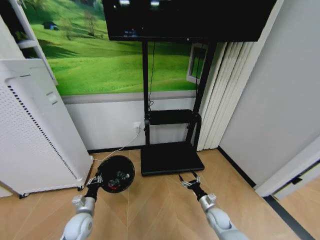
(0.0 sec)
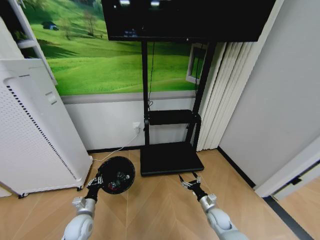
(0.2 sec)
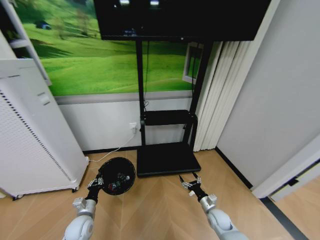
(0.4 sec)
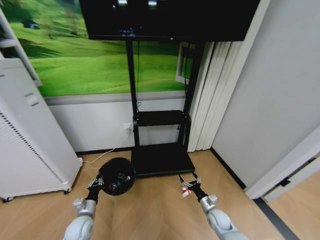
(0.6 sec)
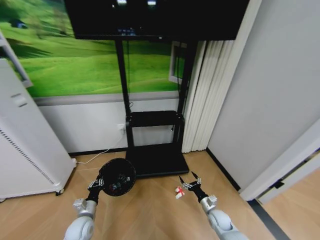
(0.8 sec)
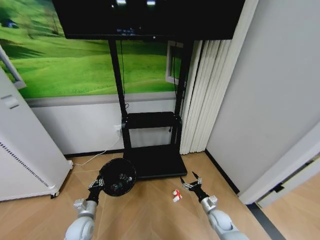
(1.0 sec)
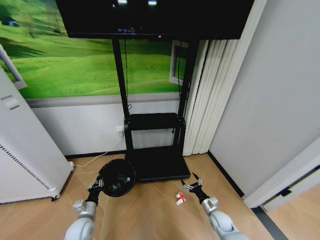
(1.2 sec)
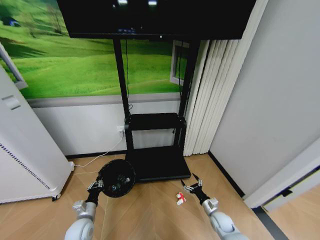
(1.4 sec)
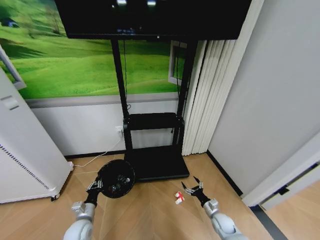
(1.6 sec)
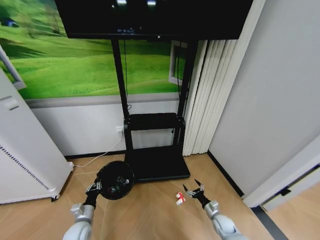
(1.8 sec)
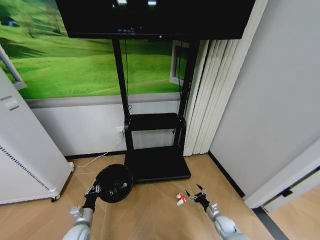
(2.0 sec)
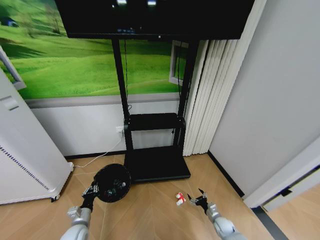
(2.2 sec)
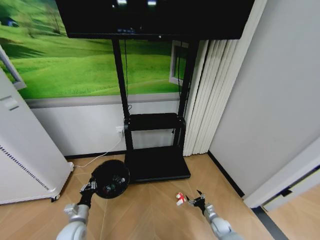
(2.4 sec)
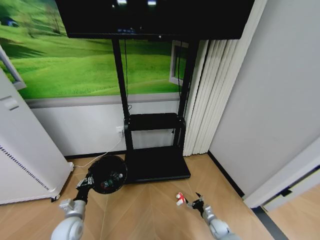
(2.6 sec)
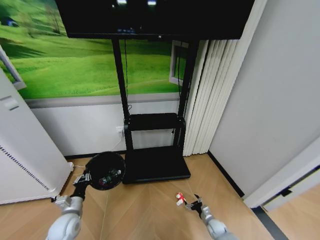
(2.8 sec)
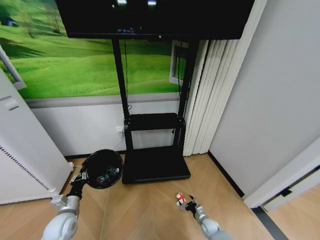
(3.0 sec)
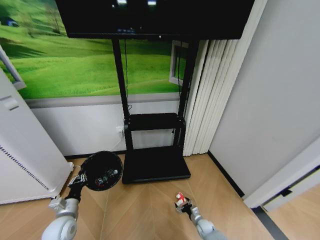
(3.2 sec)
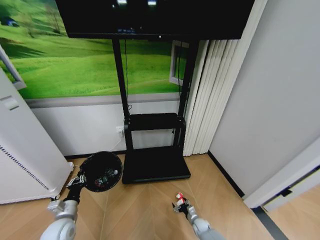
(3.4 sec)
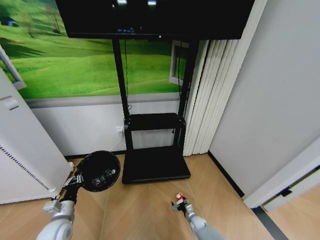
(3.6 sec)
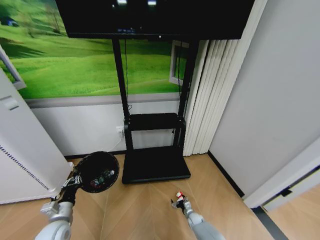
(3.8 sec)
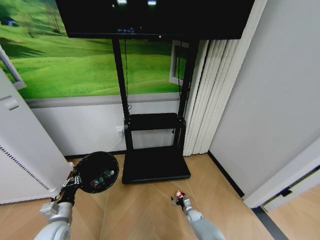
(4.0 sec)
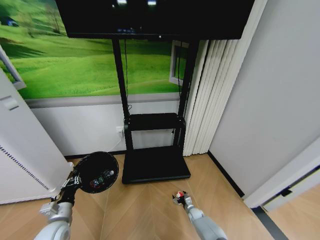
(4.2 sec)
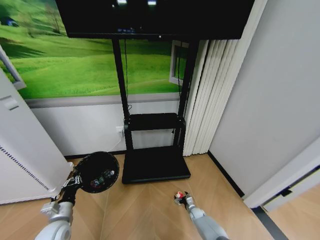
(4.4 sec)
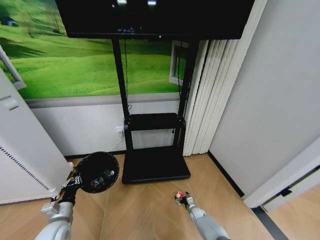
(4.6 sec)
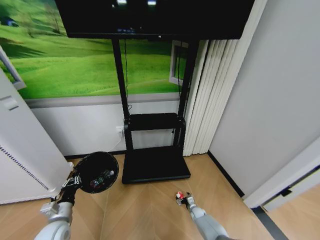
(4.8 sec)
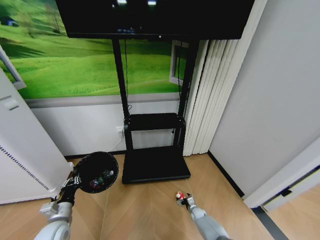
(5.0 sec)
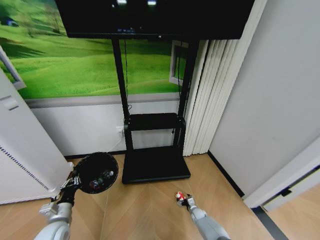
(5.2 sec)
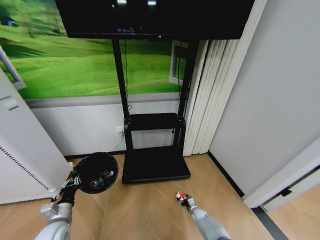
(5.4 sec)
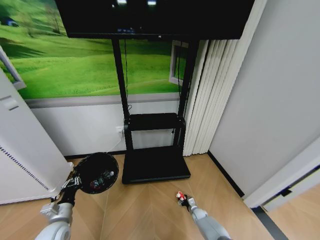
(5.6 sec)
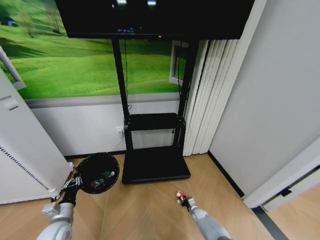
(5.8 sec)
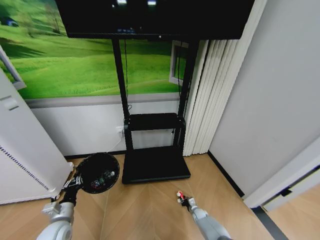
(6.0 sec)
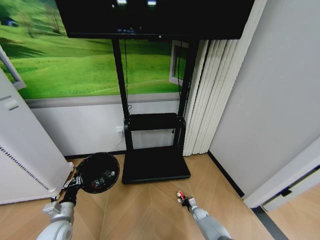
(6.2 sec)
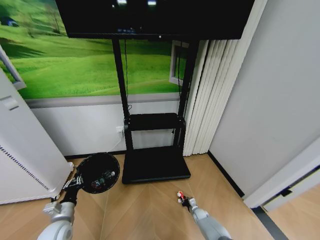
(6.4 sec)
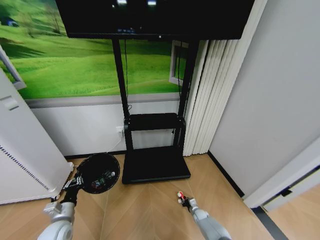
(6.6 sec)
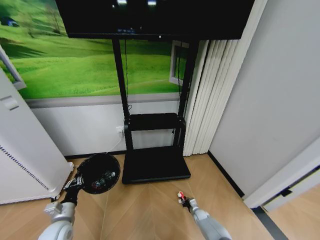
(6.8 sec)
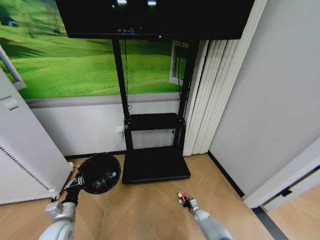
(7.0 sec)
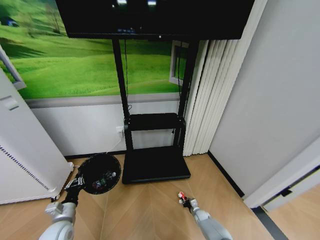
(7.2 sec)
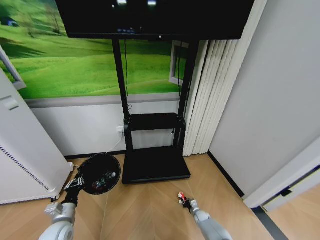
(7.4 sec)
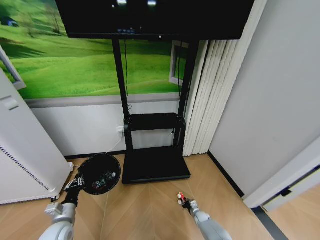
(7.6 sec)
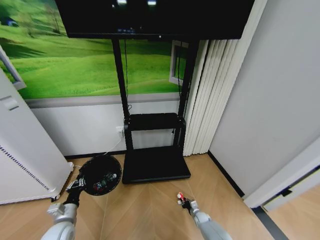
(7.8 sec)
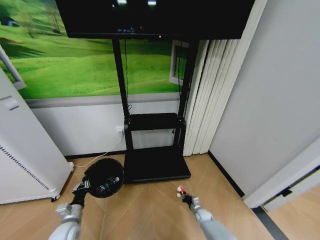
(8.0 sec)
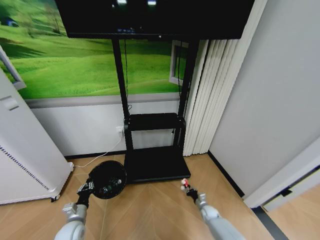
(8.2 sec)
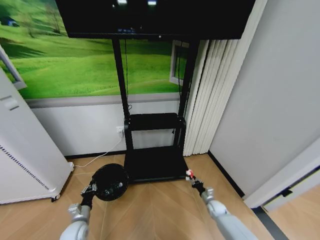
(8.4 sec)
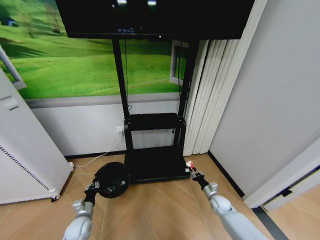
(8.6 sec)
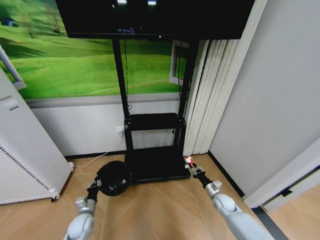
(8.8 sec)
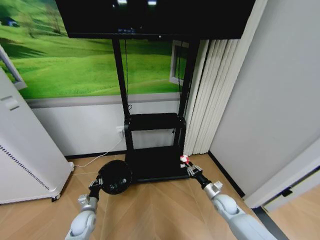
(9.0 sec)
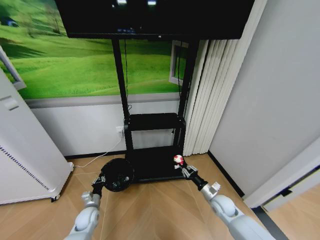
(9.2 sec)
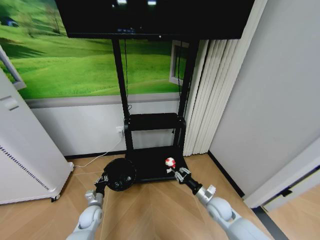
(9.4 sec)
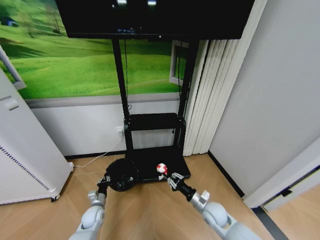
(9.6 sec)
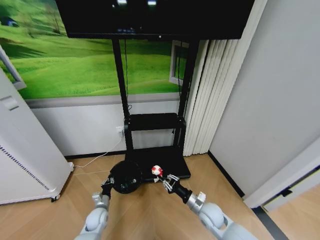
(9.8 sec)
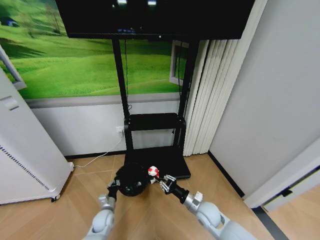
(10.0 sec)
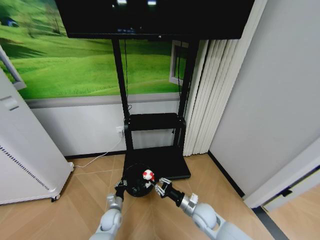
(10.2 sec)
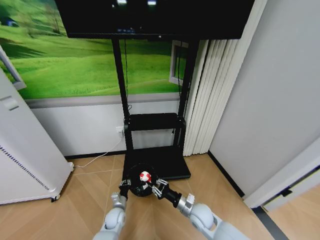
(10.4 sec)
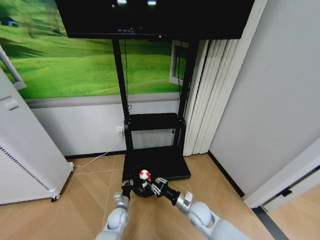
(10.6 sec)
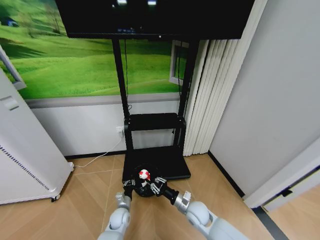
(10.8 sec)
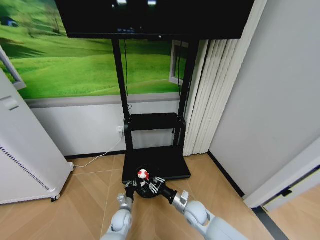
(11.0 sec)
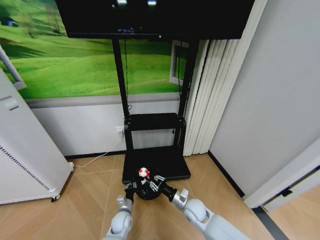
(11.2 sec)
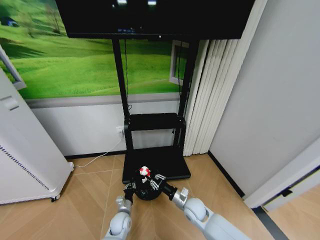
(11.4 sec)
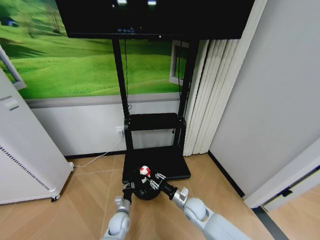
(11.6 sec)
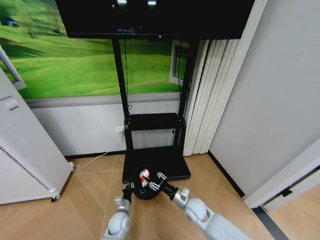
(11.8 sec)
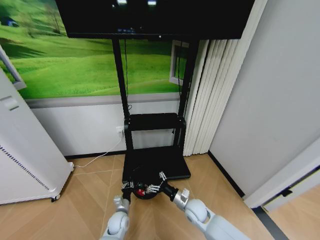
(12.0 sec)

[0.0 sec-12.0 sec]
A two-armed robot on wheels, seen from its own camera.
Task of the whole recording: Pick up the trash bin and place the garbage on the floor into it.
1.6 sec to 3.0 sec: The left gripper travels upward by approximately 5 cm, while the right gripper is displaced downward by some 10 cm.
3.0 sec to 4.4 sec: The right gripper goes about 5 cm forward.
6.0 sec to 7.6 sec: There are only small adjustments of the grippers.
7.6 sec to 9.0 sec: The left gripper heads downward and forward, covering roughly 10 cm. Meanwhile the right gripper heads upward, covering some 25 cm.
9.0 sec to 10.4 sec: The right gripper moves to the left, approximately 15 cm. The left gripper goes approximately 15 cm to the right.
10.4 sec to 12.0 sec: The right gripper opens its fingers.

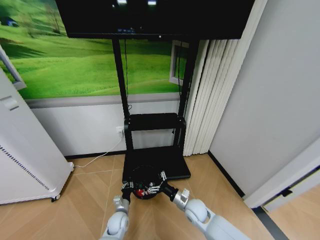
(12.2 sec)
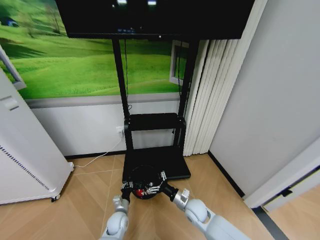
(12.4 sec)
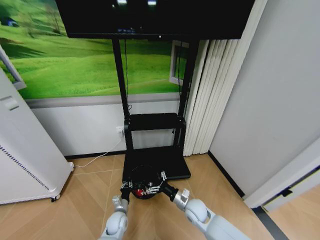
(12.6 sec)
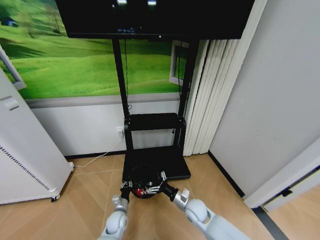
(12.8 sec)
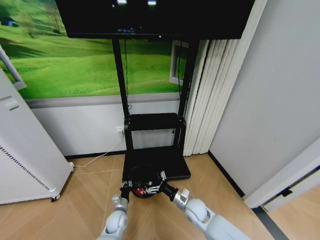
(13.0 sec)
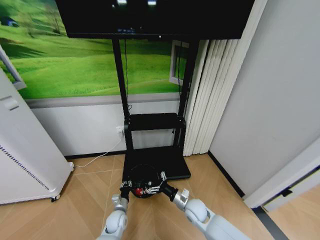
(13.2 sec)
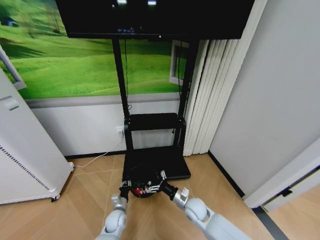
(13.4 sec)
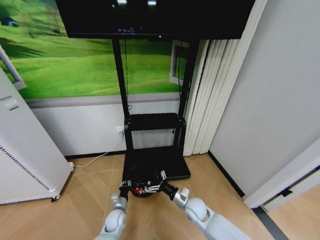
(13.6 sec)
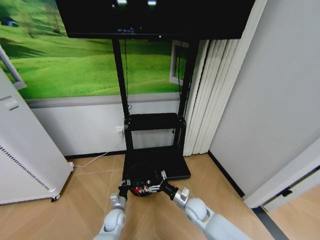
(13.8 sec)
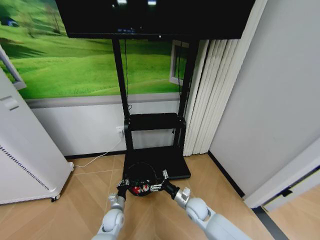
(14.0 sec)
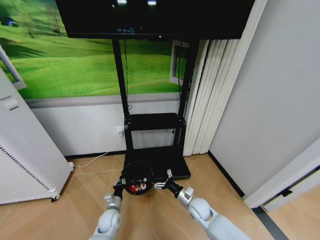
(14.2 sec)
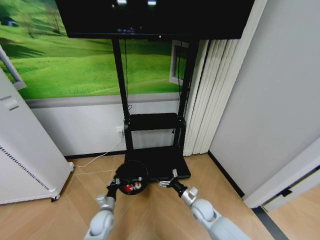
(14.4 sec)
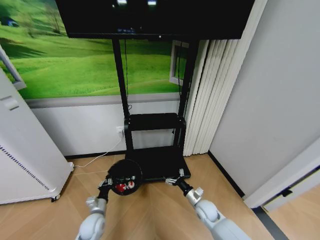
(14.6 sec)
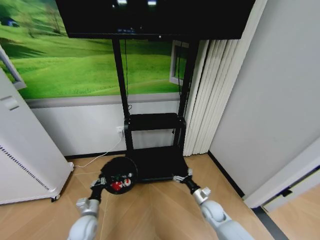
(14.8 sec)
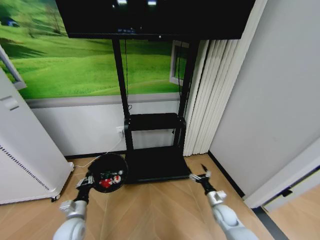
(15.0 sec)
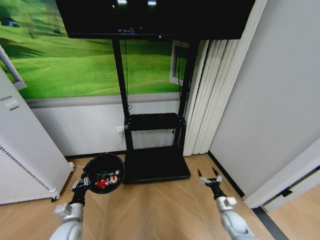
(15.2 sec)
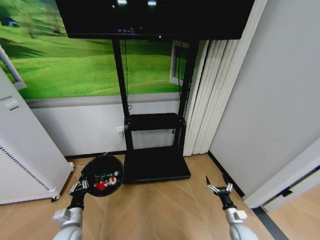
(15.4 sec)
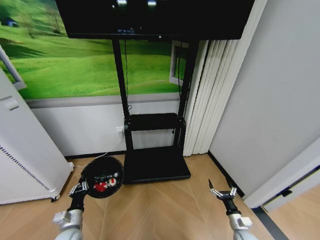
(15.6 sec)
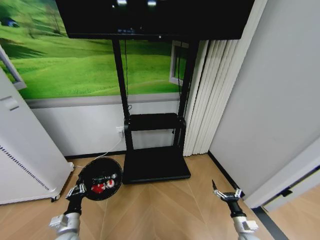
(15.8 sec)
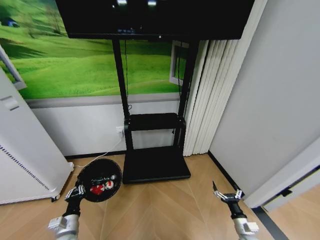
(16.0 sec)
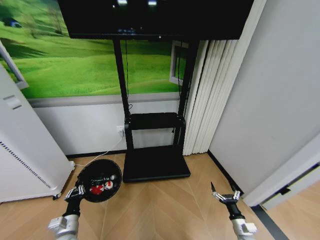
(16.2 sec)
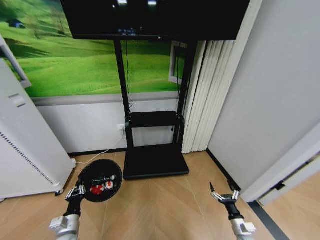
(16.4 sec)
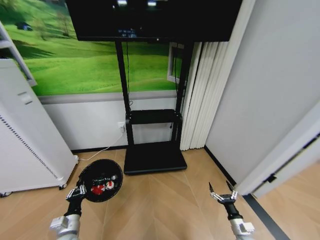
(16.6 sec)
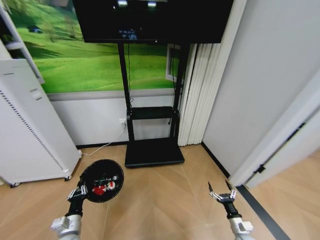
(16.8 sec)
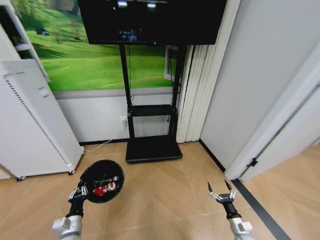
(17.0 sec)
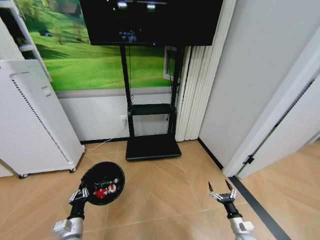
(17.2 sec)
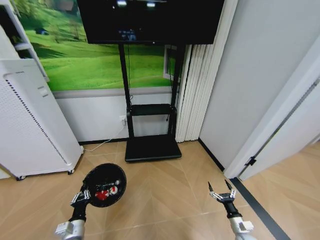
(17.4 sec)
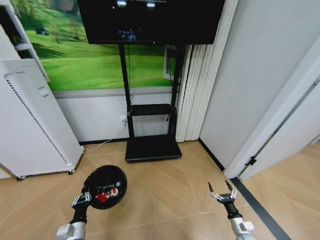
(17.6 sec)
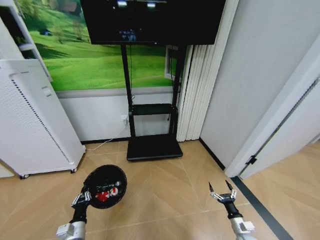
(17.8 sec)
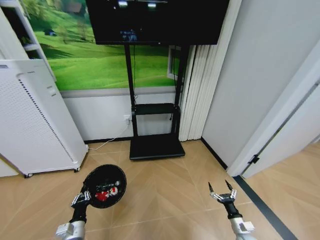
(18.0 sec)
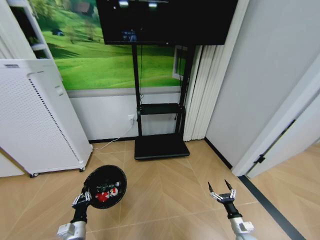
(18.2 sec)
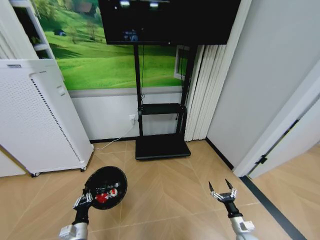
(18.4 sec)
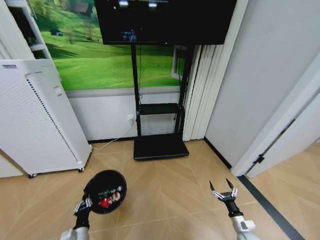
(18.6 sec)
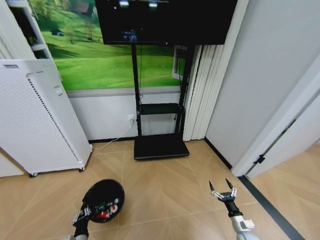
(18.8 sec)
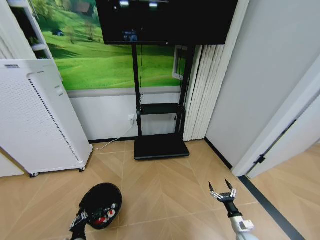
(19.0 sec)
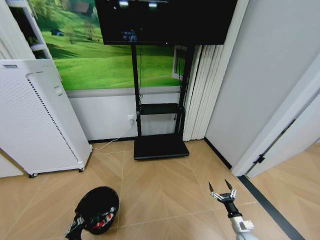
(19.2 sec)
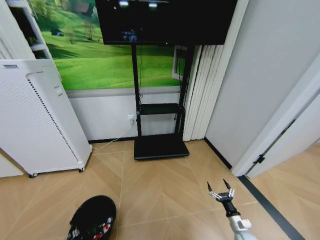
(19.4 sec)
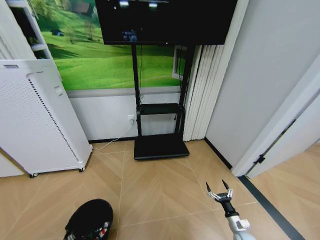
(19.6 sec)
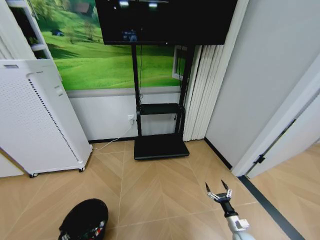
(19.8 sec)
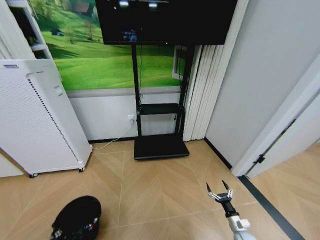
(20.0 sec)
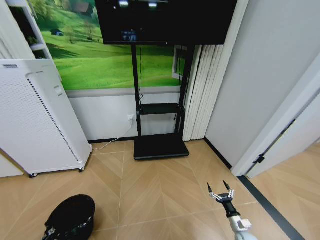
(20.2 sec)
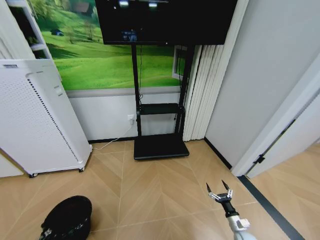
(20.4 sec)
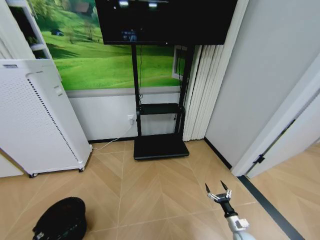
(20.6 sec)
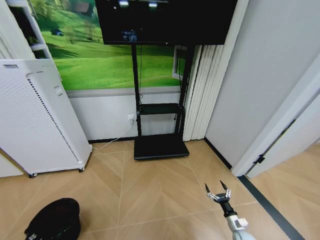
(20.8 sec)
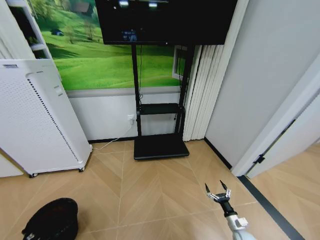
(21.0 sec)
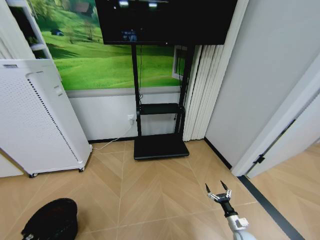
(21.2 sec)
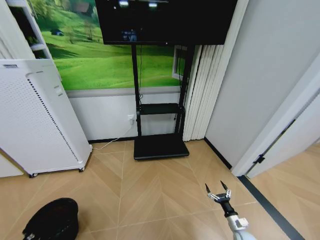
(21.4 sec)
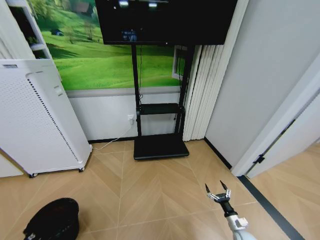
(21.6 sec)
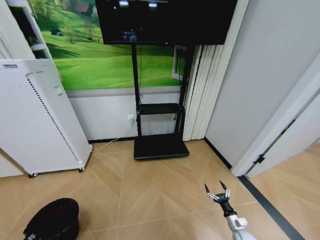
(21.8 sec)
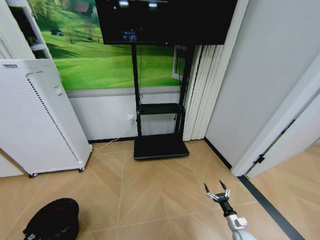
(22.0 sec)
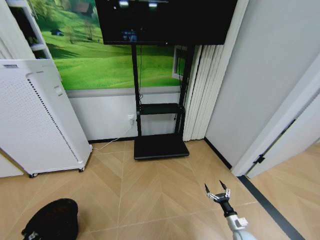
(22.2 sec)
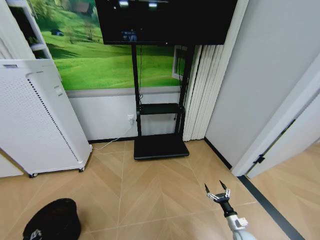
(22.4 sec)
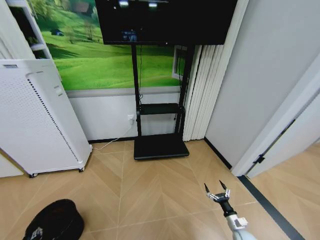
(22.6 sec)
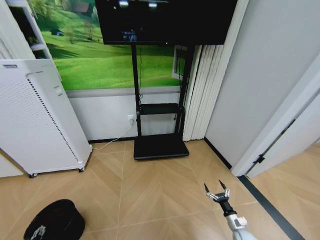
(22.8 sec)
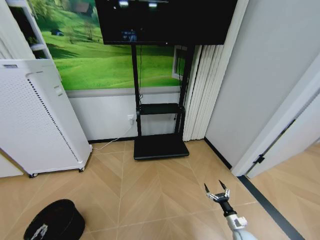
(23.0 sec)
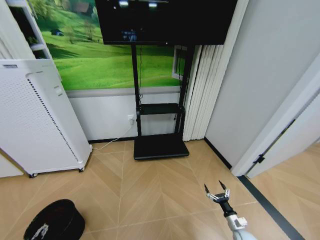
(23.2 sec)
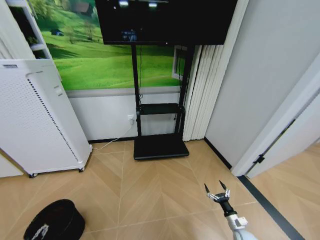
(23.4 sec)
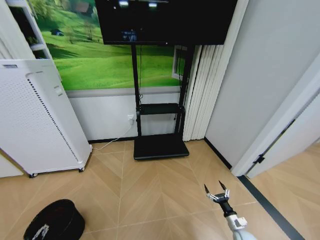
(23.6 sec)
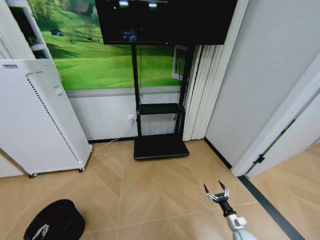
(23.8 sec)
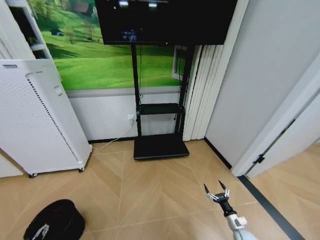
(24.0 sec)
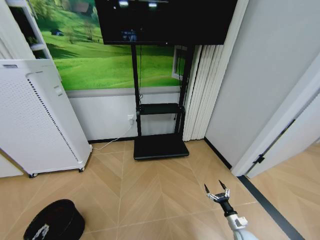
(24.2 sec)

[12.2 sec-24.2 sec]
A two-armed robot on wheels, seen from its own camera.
Task of the whole recording: Pick up the trash bin and place the garbage on the floor into it.
12.2 sec to 13.8 sec: There are only small adjustments of the grippers.
13.8 sec to 15.2 sec: The right gripper goes about 20 cm to the right. Meanwhile the left gripper shifts some 20 cm to the left, upward and backward.
15.2 sec to 16.6 sec: The right gripper is displaced backward by roughly 10 cm.
18.2 sec to 19.8 sec: The left gripper is displaced backward and downward by approximately 10 cm.
19.8 sec to 21.2 sec: The left gripper heads to the left, covering roughly 15 cm.
21.2 sec to 22.6 sec: The left gripper opens up.
